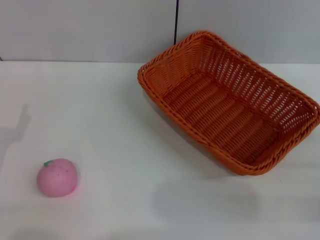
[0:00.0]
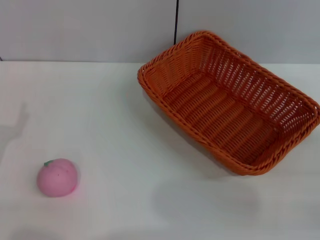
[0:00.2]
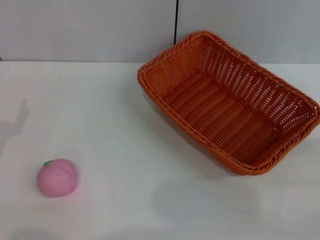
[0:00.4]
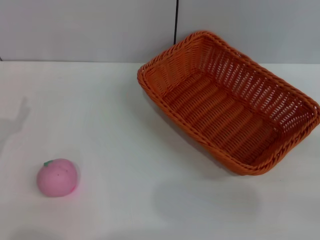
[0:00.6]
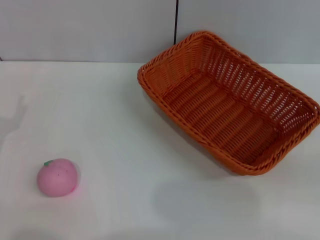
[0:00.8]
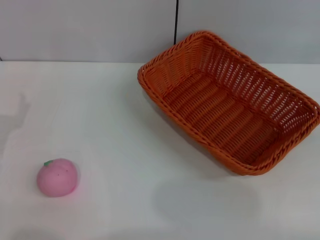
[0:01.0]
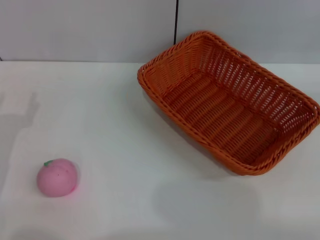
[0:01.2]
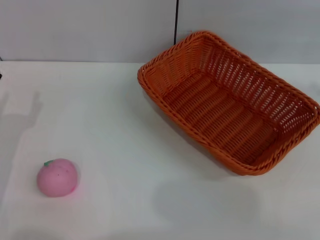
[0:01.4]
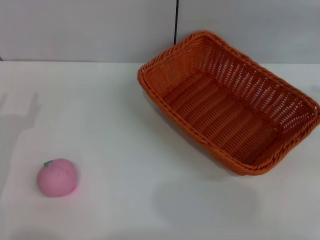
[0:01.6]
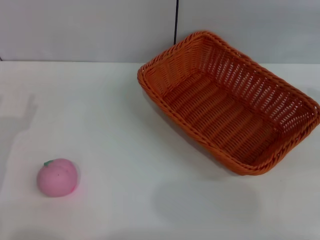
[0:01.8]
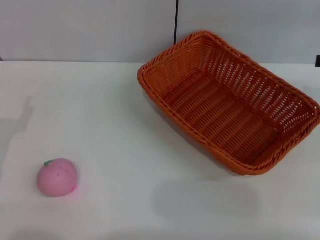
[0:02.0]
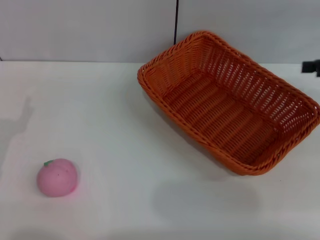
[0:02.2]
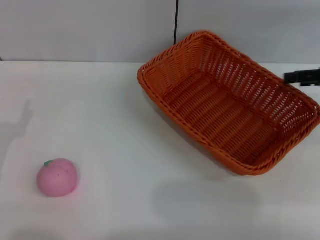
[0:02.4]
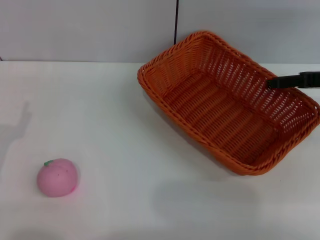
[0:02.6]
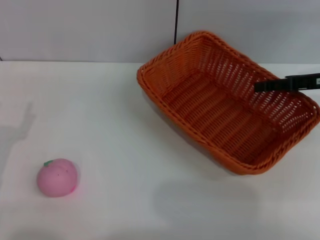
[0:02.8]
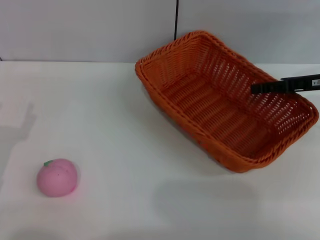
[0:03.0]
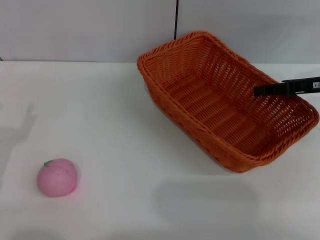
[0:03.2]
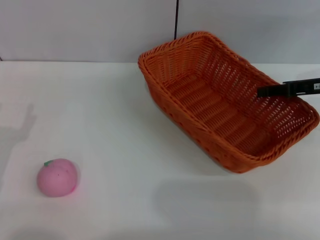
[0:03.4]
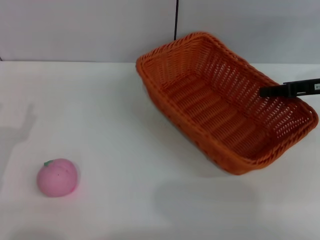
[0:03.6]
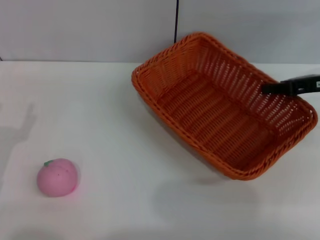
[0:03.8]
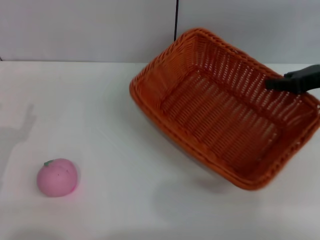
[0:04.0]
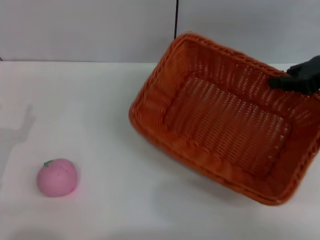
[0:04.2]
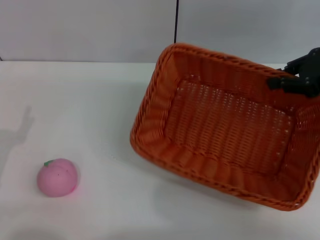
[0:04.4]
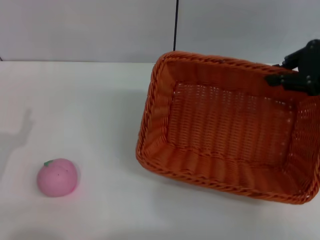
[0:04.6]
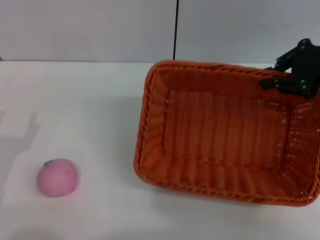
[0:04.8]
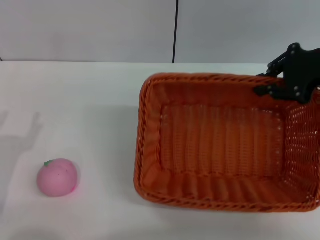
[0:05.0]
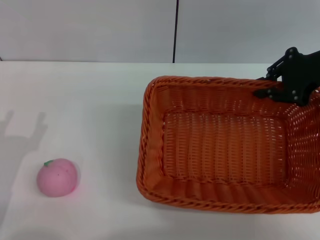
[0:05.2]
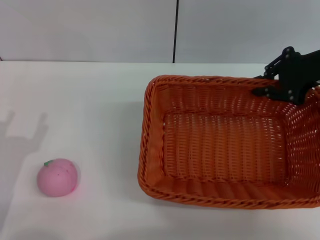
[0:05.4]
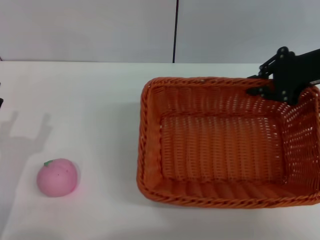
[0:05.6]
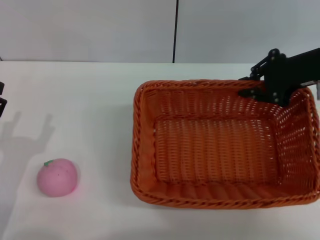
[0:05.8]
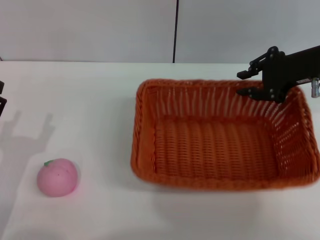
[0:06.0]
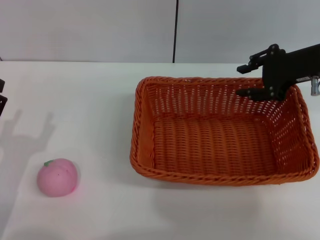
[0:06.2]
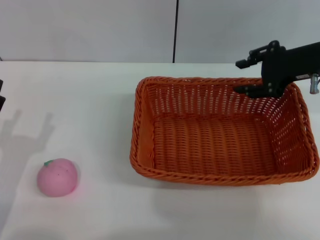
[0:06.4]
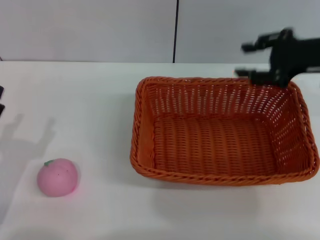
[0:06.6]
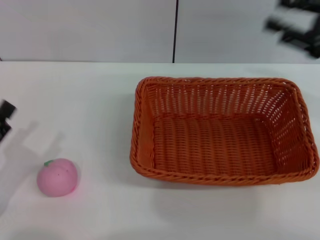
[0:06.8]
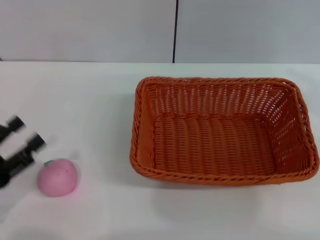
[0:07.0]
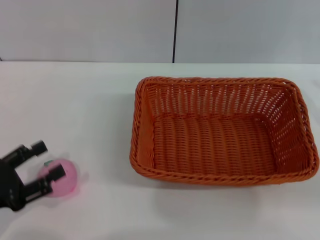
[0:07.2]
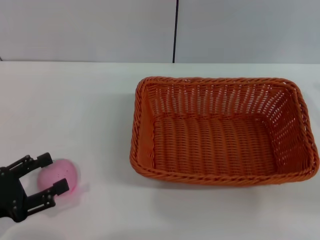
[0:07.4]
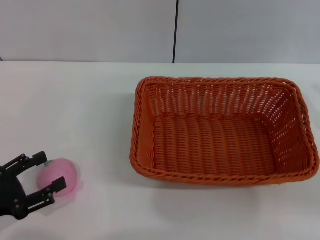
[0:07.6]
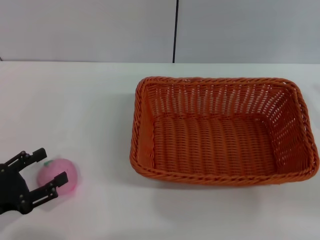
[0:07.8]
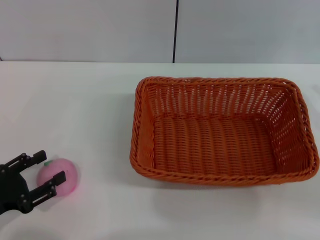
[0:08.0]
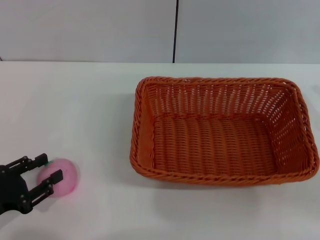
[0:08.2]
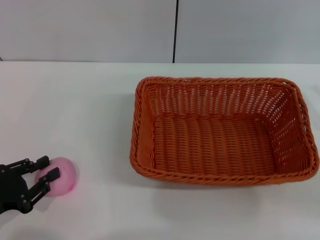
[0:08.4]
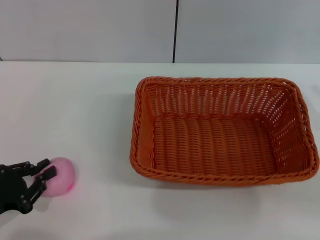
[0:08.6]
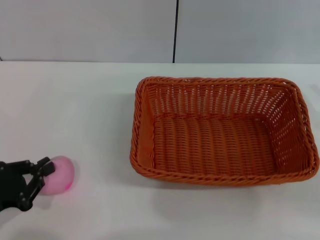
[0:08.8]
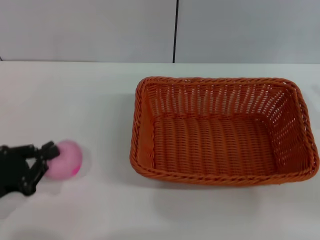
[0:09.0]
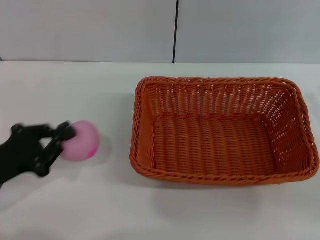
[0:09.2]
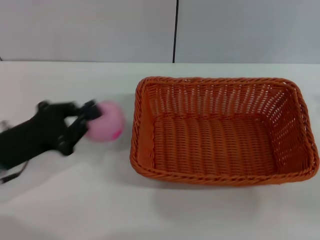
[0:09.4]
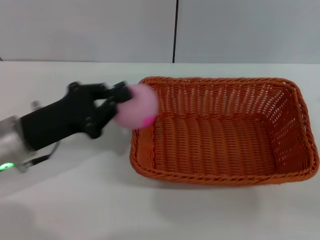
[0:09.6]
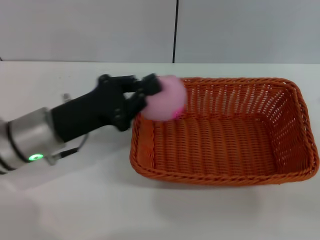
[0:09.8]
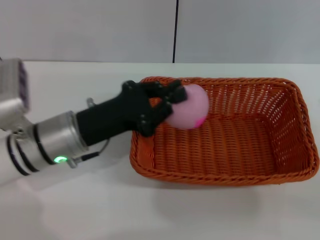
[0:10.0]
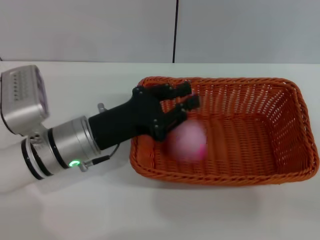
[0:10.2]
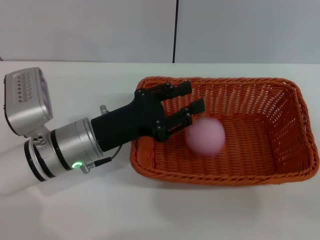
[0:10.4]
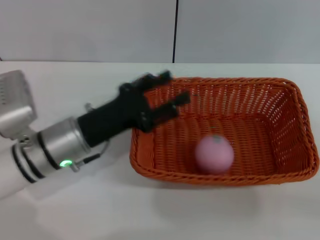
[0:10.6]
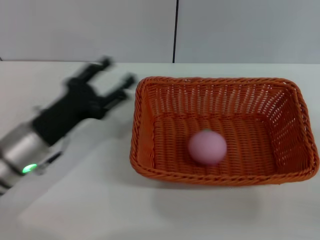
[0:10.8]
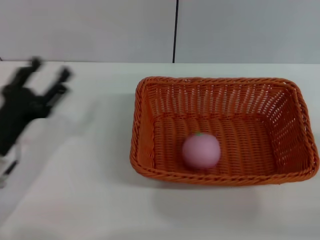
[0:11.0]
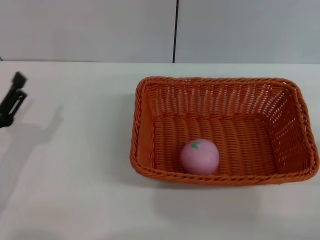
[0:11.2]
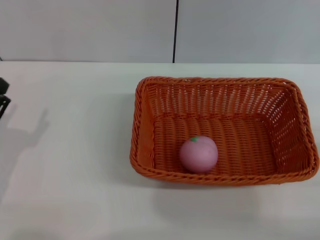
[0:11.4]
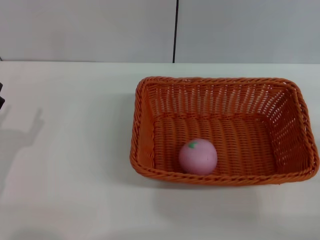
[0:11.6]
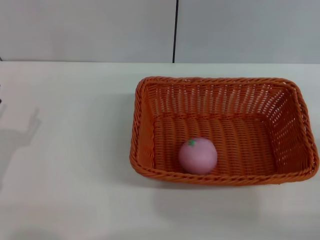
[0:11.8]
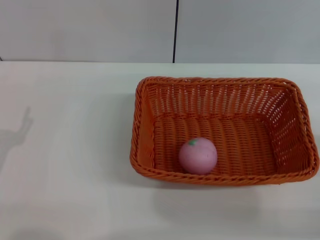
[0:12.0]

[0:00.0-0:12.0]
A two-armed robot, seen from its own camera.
Step, 0:00.0 to 0:03.8: Pick up the light basket with the right gripper.
Step, 0:04.0 to 0:06.6: Place the light basket in the center of view with the right gripper.
Step, 0:06.8 to 0:09.0: Pick up the peach with the left gripper.
Step, 0:09.2 to 0:10.6: Place the peach into the basket with the left gripper.
0:01.6 to 0:03.0: The right gripper heads to the left, downward and forward, covering about 15 cm.
0:03.0 to 0:04.4: The right gripper moves upward, about 5 cm, and closes up.
0:04.4 to 0:06.0: The right gripper travels to the left by about 5 cm.
0:06.0 to 0:07.6: The right gripper heads backward and to the right, covering approximately 20 cm, and opens its fingers; the left gripper goes approximately 5 cm to the left.
0:07.6 to 0:09.0: The left gripper closes up.
0:09.0 to 0:10.4: The left gripper moves to the right and forward, some 20 cm.
0:10.4 to 0:12.0: The right gripper opens its fingers; the left gripper moves to the left and backward, about 20 cm, and opens its fingers.
